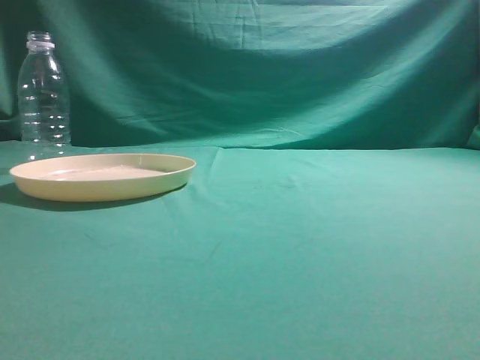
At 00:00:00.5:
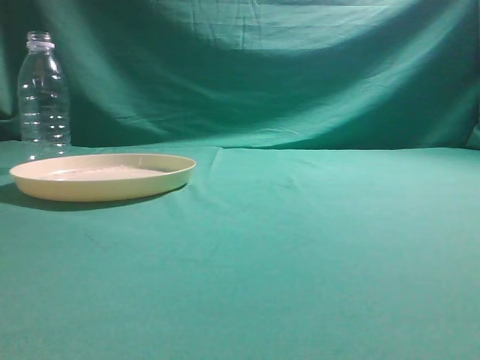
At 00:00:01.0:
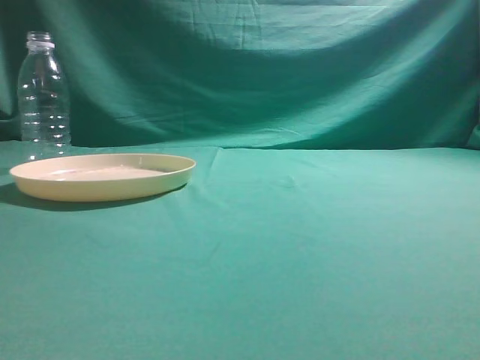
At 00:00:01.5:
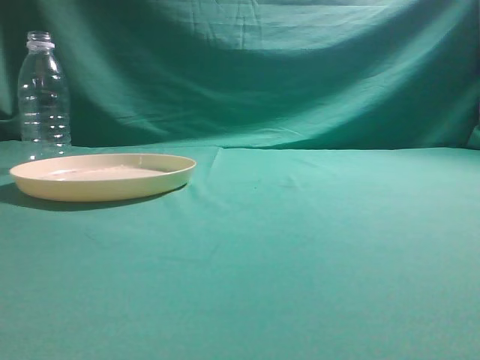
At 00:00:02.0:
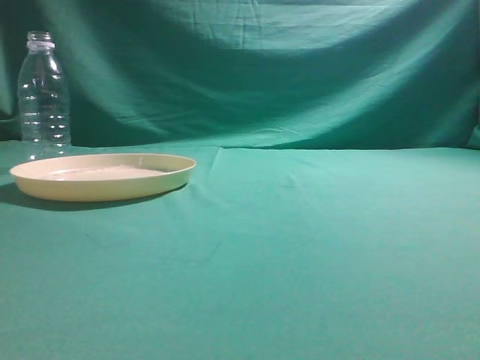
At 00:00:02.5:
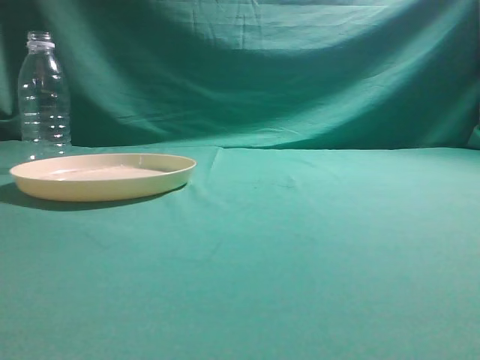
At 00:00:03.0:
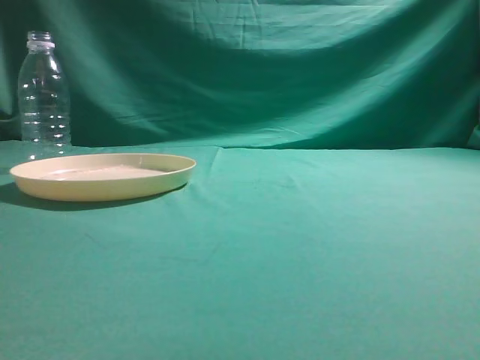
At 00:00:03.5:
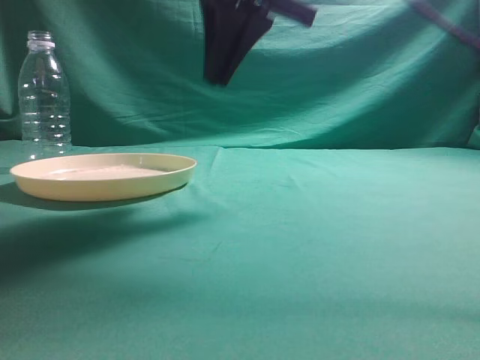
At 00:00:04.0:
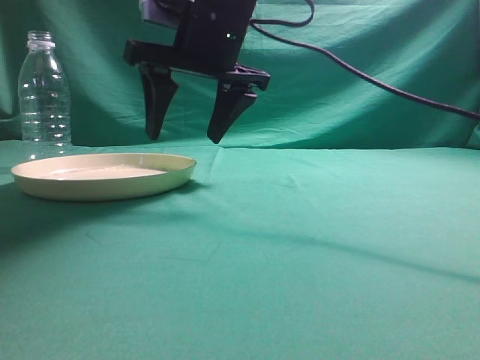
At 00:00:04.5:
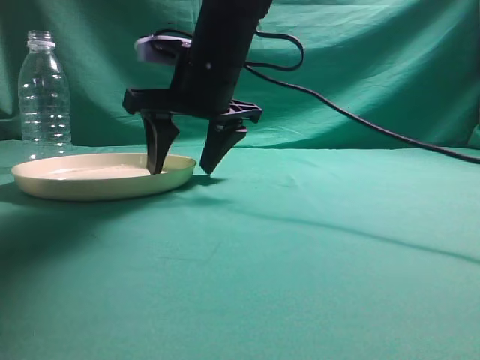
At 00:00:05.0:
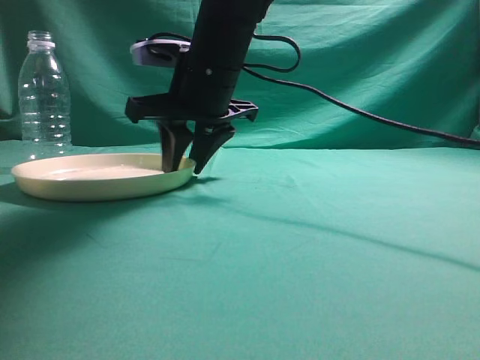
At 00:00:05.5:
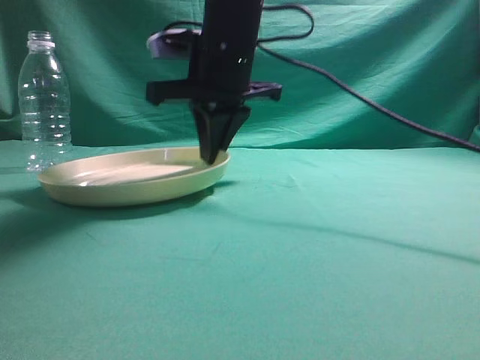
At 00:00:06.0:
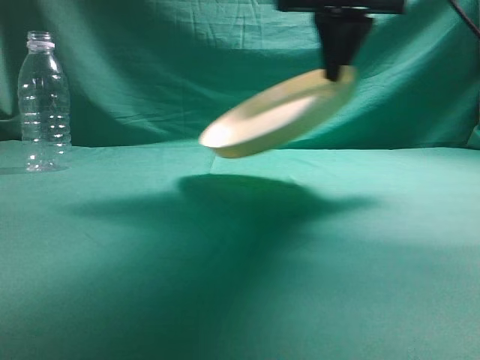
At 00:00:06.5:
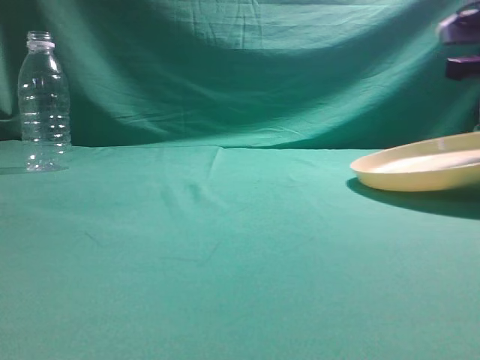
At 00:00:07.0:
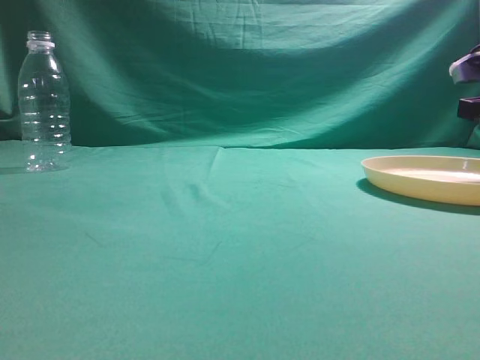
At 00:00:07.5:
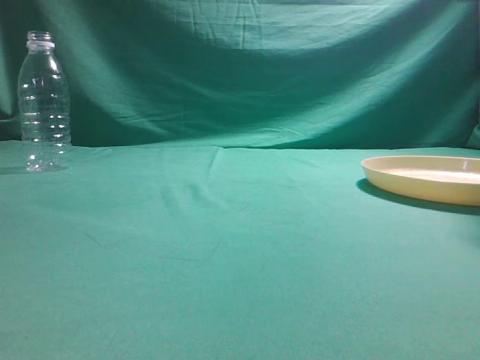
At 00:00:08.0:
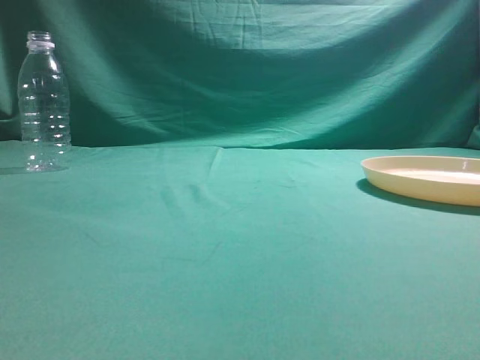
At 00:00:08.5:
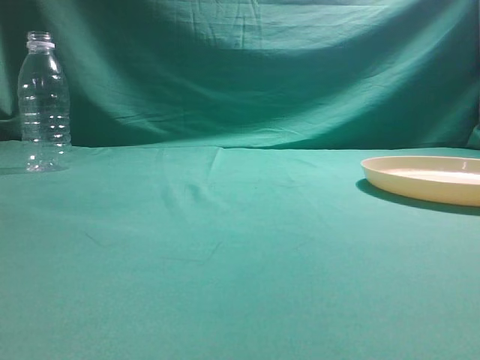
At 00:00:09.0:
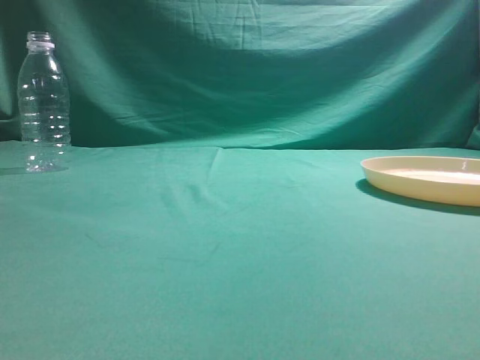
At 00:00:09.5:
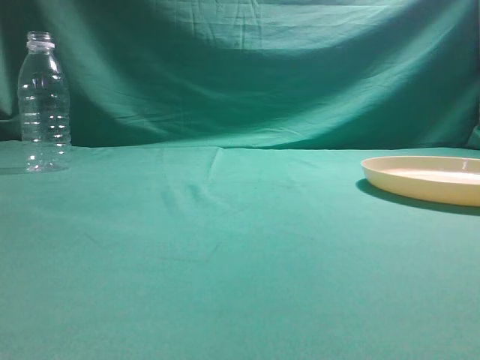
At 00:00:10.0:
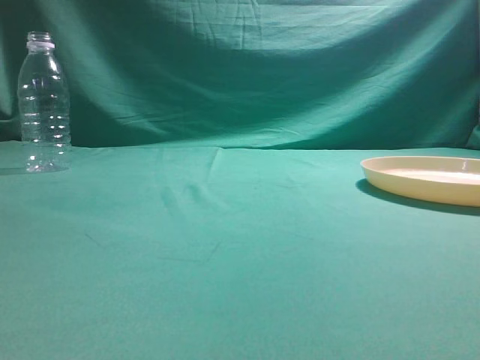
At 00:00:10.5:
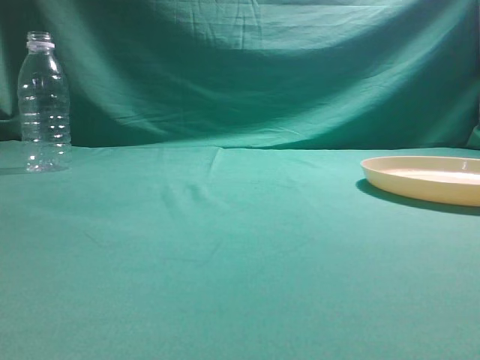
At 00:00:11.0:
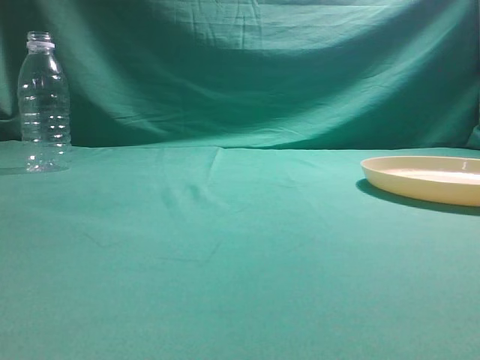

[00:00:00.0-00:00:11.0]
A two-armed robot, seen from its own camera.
Step, 00:00:00.0 to 00:00:05.5: Pick the container that can hold fruits.
Step, 00:00:06.0 to 00:00:07.0: Move the picked object to the right side of the table.
00:00:02.0 to 00:00:03.5: The right gripper moves forward and to the left, approximately 35 cm.
00:00:03.5 to 00:00:05.5: The right gripper moves downward, forward and to the left, about 15 cm, and opens, then closes once more.
00:00:05.5 to 00:00:07.5: The right gripper heads to the right, covering approximately 30 cm, and opens its fingers.
